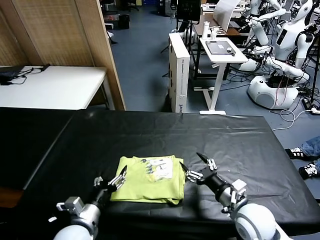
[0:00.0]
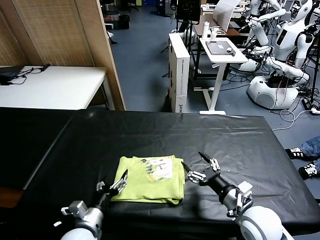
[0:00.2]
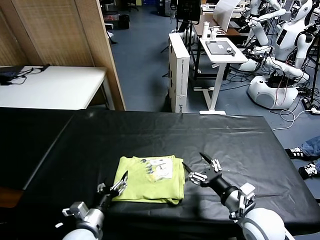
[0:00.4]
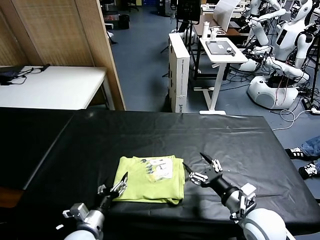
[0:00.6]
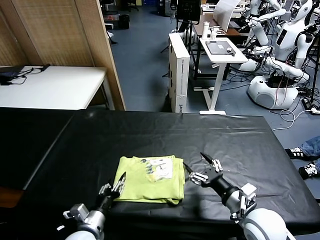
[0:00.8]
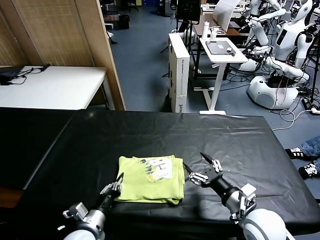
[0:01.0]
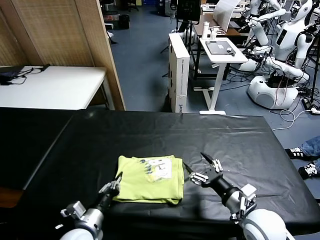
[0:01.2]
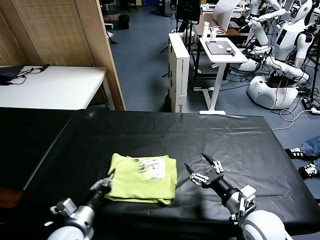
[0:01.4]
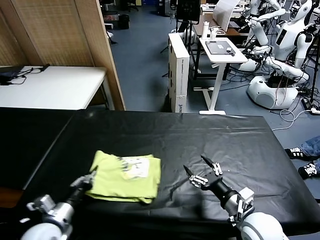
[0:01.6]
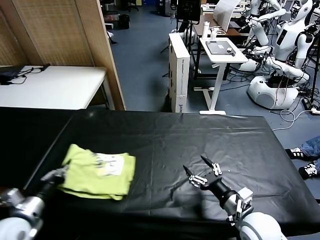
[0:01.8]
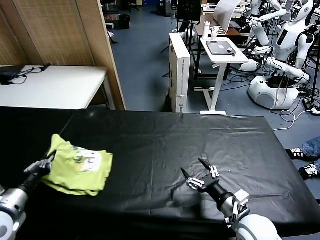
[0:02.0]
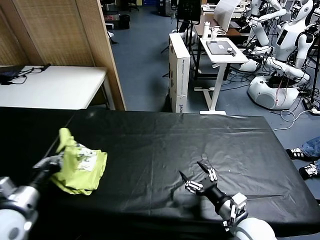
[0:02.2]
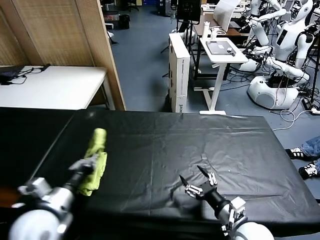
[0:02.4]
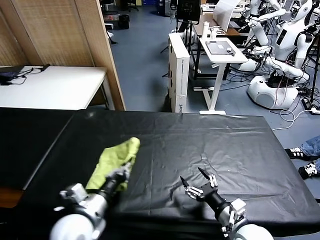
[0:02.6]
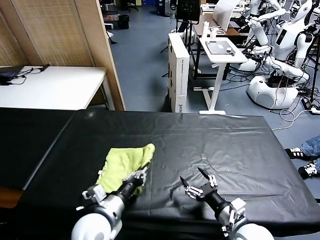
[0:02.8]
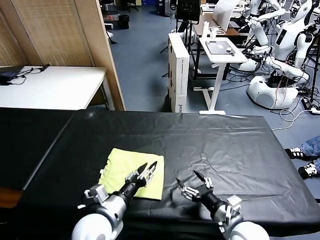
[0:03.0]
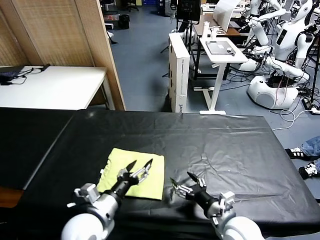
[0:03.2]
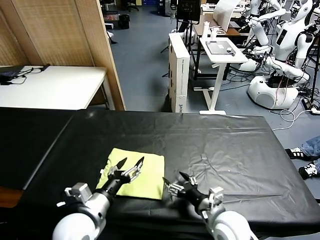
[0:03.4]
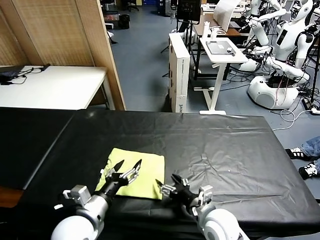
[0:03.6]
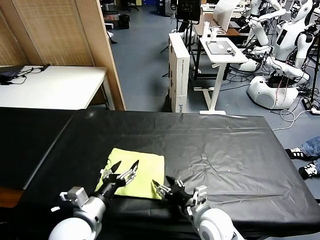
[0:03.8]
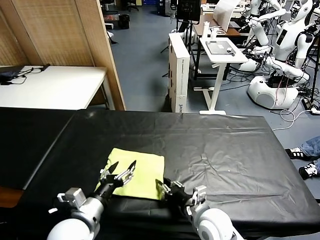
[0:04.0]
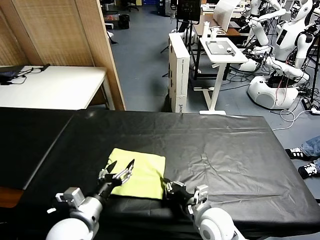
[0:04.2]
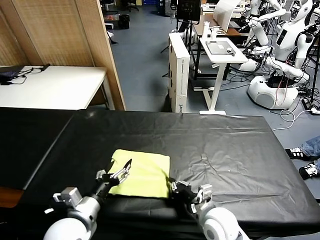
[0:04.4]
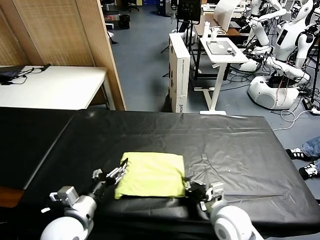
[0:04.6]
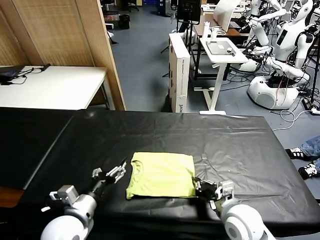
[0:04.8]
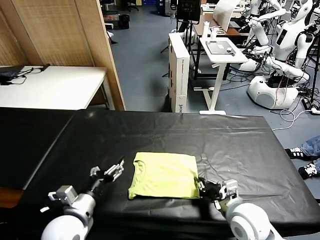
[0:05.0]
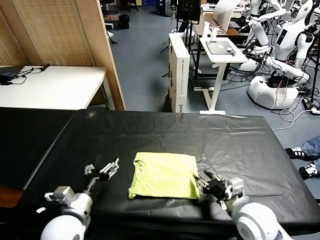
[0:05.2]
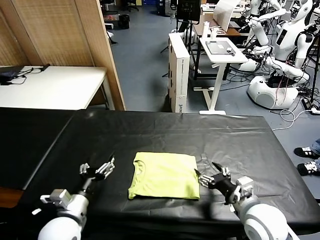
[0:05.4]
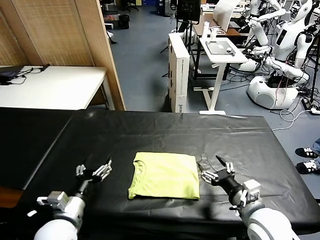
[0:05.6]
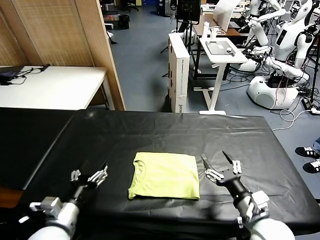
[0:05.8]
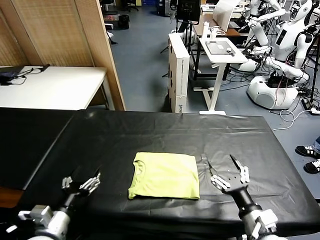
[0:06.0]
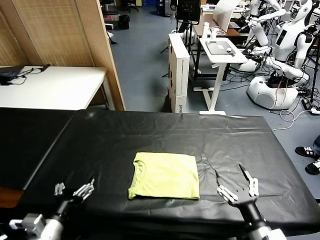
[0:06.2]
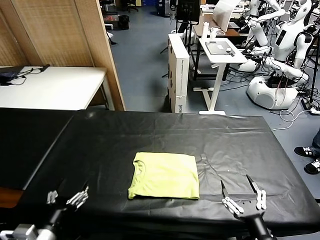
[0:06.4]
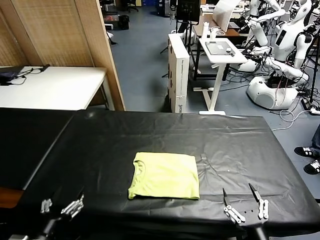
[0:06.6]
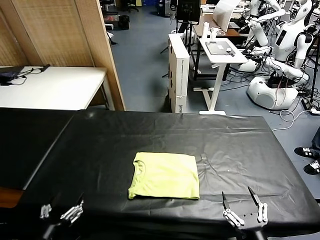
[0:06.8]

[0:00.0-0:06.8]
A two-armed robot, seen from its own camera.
Task of the whole recording: fold and organize the clothes.
Step, 0:00.0 to 0:02.8: Flip the folded clothes over with left gripper.
Step, 0:03.2 to 0:05.0: Drag the clothes to the center of the table.
0:00.0 to 0:01.4: The left gripper closes its fingers.
0:01.4 to 0:02.8: The left gripper goes roughly 5 cm upward, and travels to the left and back again, about 15 cm each way.
0:02.8 to 0:04.0: The right gripper moves to the left, some 10 cm, and closes its fingers. Meanwhile the left gripper opens up.
0:04.0 to 0:05.4: The right gripper goes about 15 cm to the right and upward, and closes, then opens again.
0:05.4 to 0:06.8: The left gripper goes about 15 cm backward and to the left, while the right gripper moves backward, roughly 15 cm.
